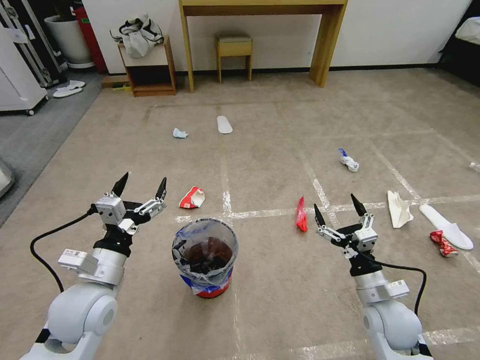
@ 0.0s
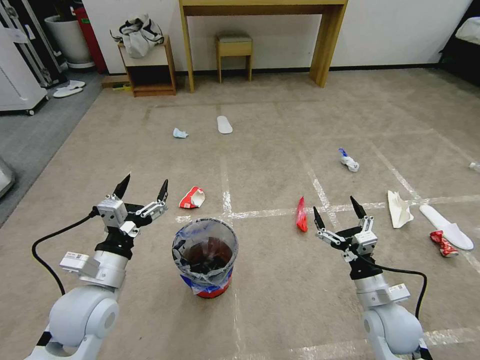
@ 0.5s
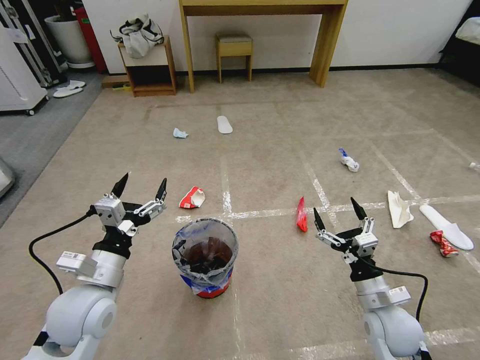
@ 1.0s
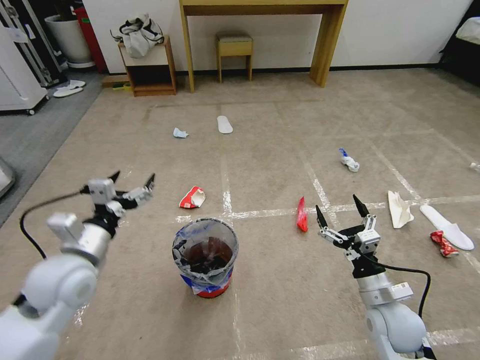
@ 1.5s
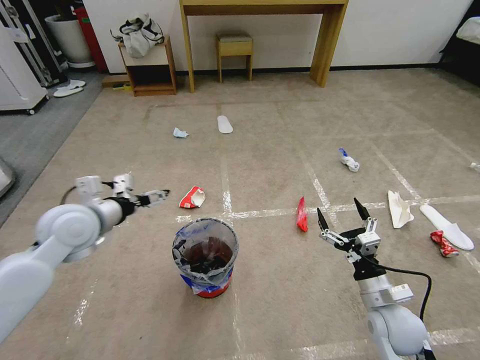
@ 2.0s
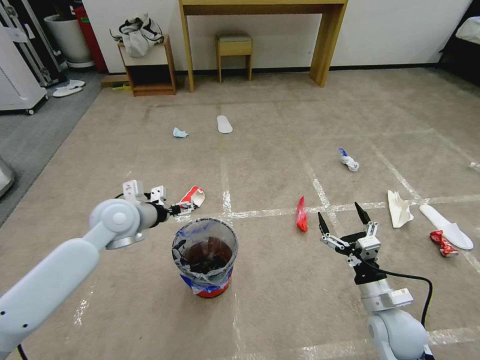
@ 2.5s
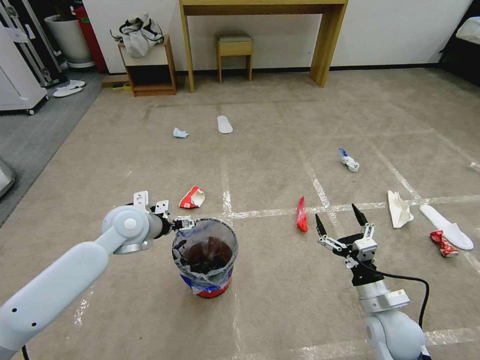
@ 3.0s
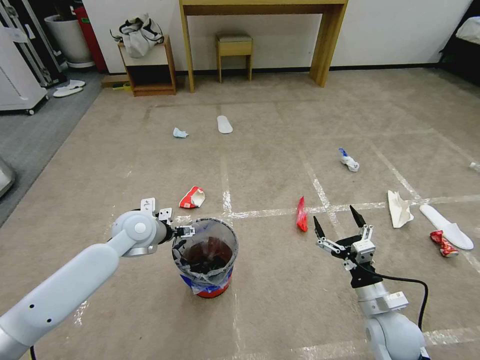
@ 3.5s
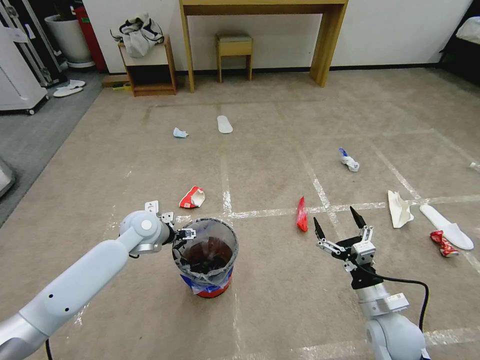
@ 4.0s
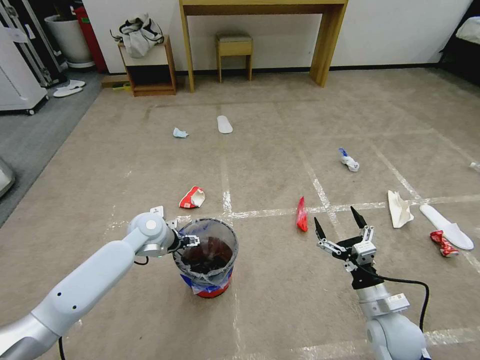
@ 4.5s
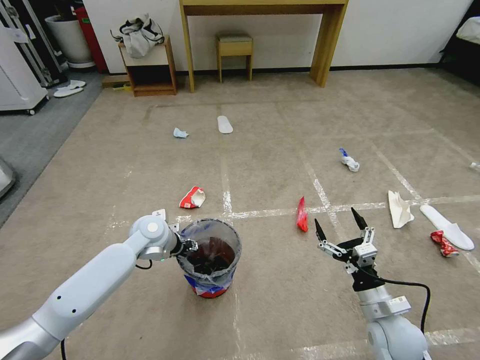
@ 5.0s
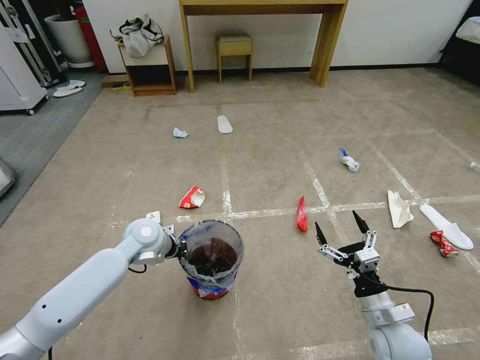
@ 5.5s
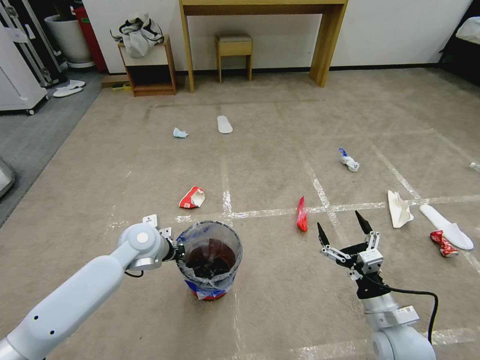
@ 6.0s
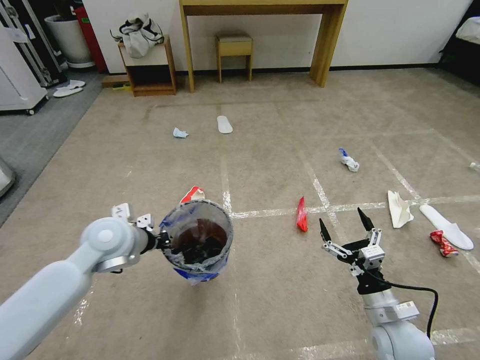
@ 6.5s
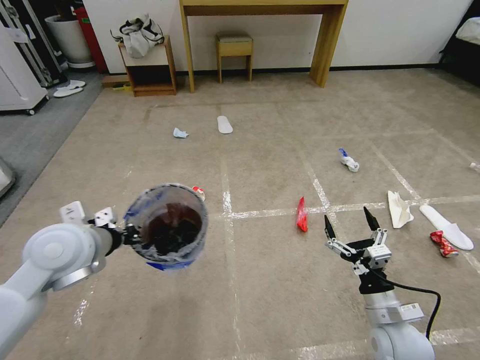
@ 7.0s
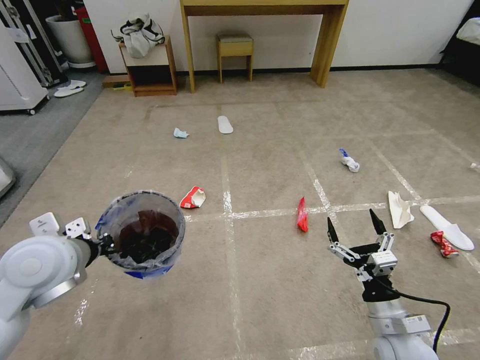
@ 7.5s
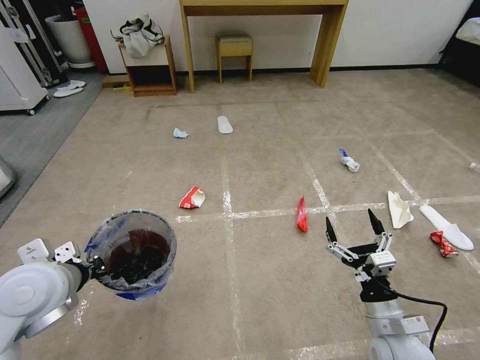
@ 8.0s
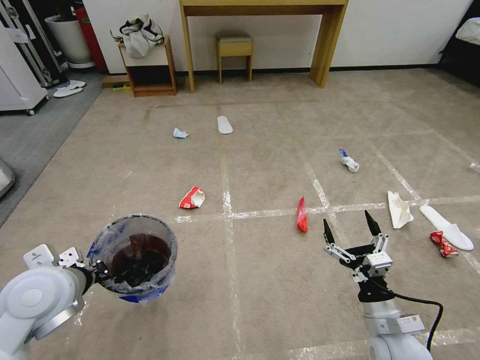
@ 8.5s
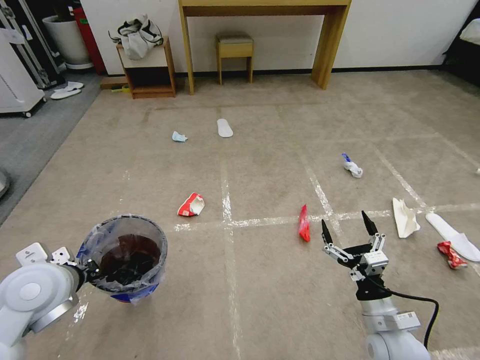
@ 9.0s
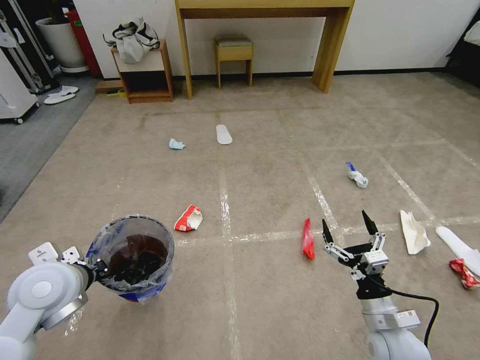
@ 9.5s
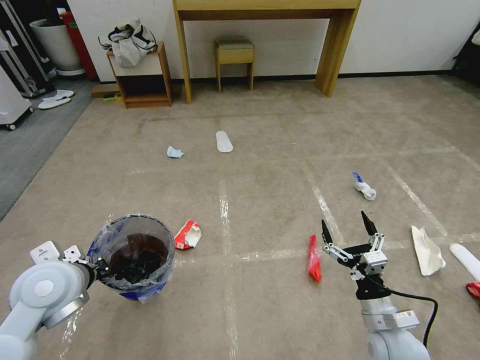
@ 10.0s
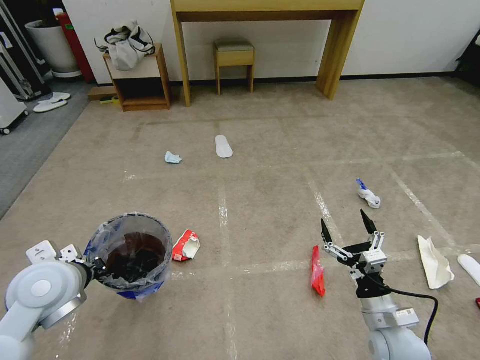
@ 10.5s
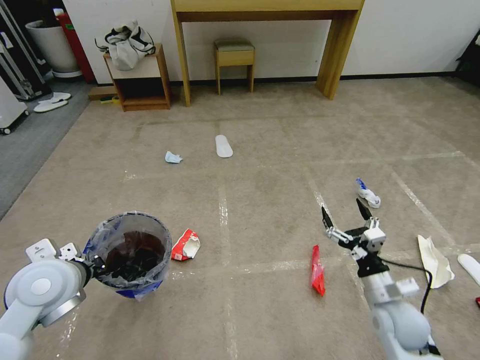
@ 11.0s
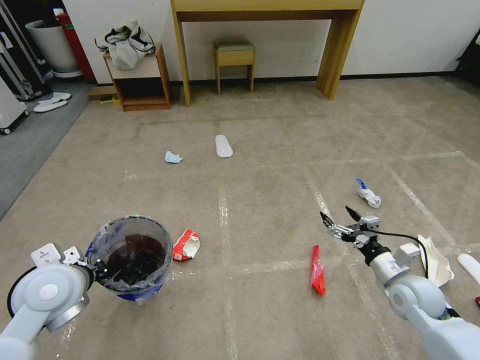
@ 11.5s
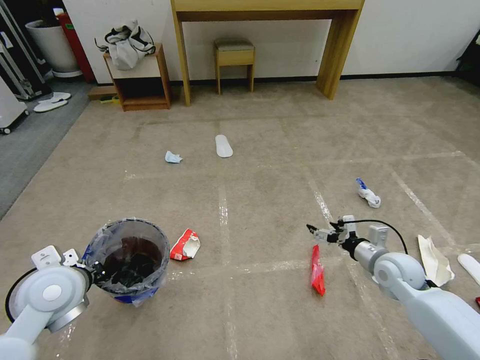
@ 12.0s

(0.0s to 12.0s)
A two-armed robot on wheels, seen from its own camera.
Task of the whole recording: Pick up the trash bin and place the garbage on the floor into it.
2.0s - 4.0s: The left gripper heads downward, forward and to the right, covering approximately 20 cm.
4.0s - 6.0s: The left gripper closes.
6.0s - 8.0s: The left gripper shifts roughly 20 cm backward, upward and to the left.
10.0s - 12.0s: The right gripper is displaced forward and to the right by about 15 cm.

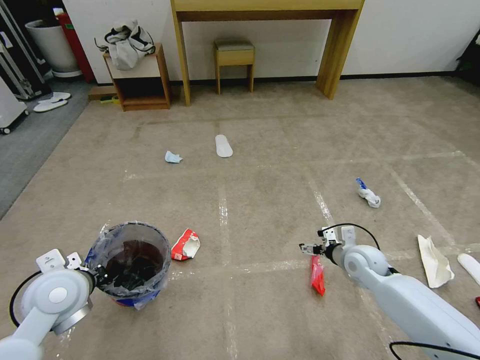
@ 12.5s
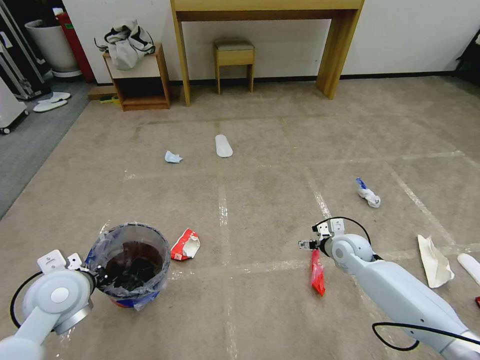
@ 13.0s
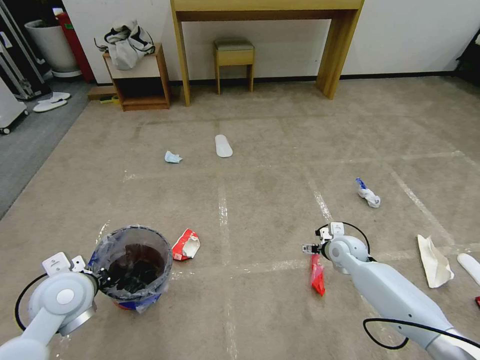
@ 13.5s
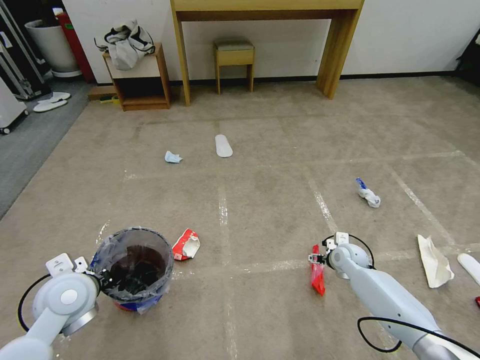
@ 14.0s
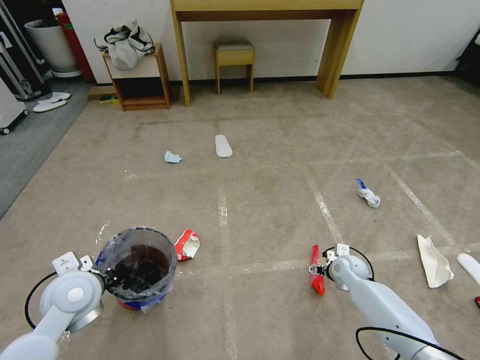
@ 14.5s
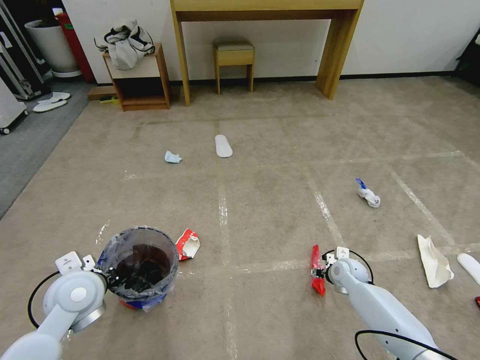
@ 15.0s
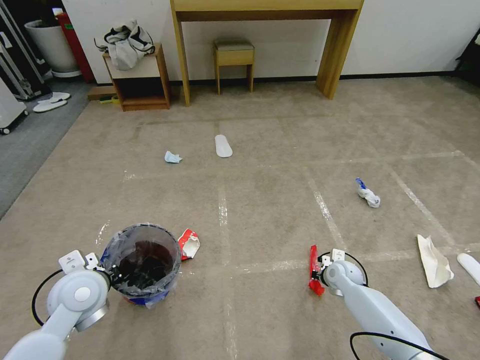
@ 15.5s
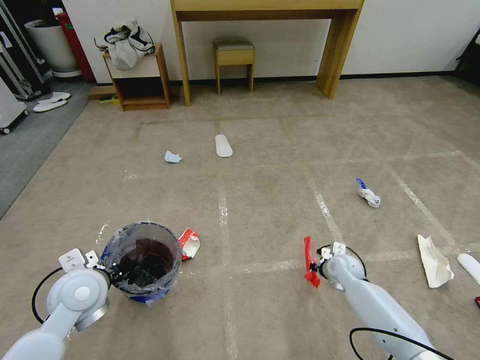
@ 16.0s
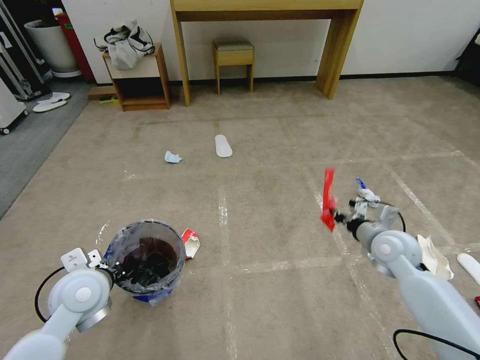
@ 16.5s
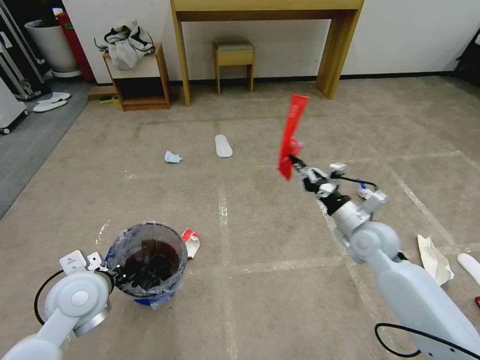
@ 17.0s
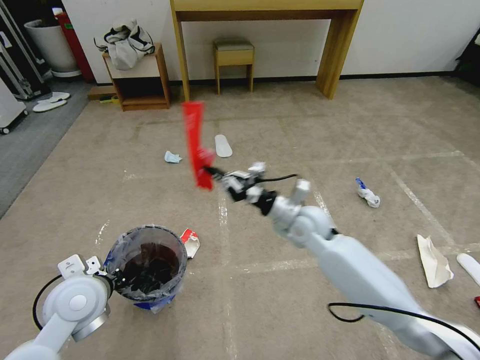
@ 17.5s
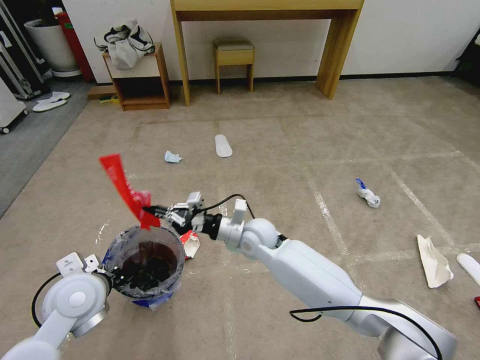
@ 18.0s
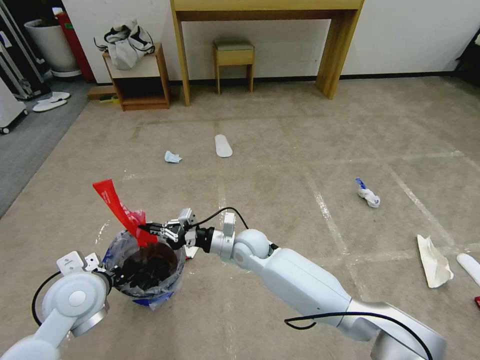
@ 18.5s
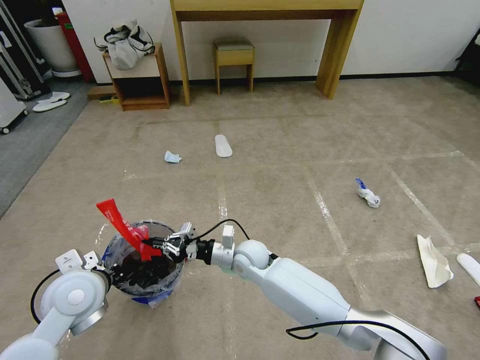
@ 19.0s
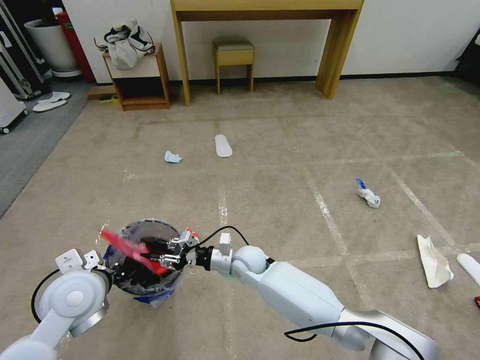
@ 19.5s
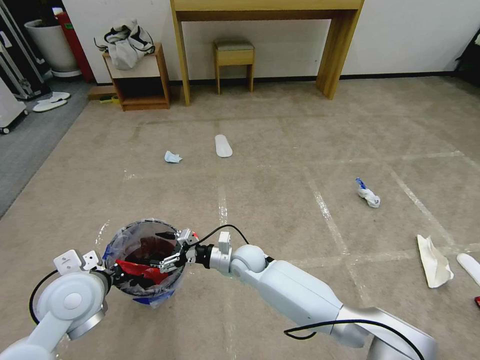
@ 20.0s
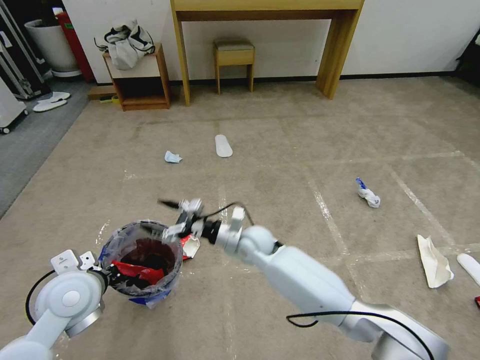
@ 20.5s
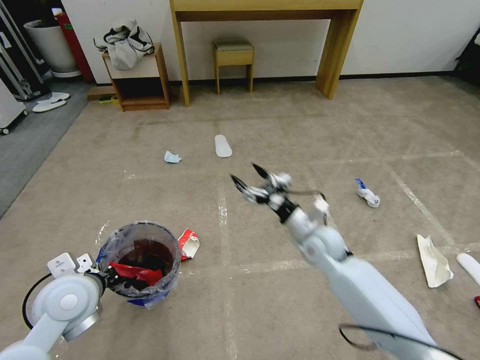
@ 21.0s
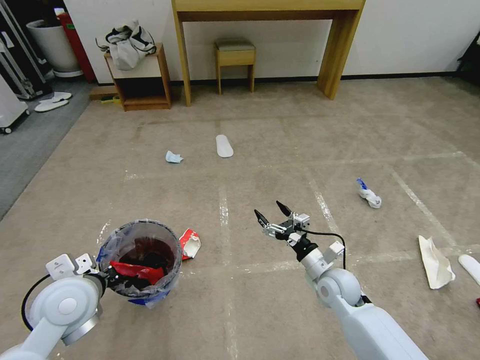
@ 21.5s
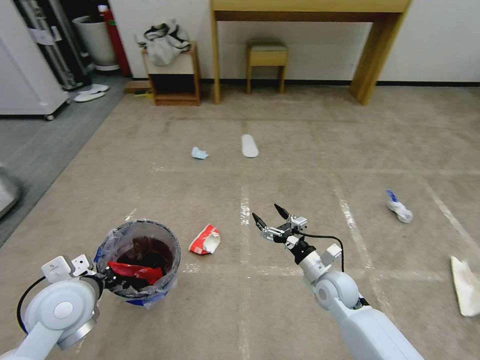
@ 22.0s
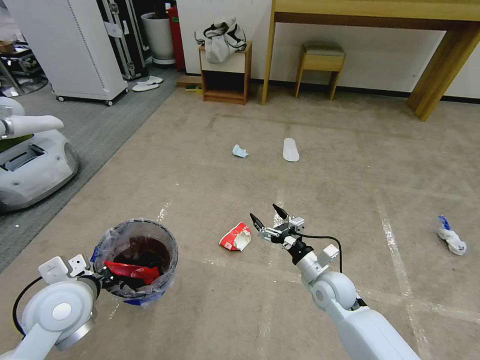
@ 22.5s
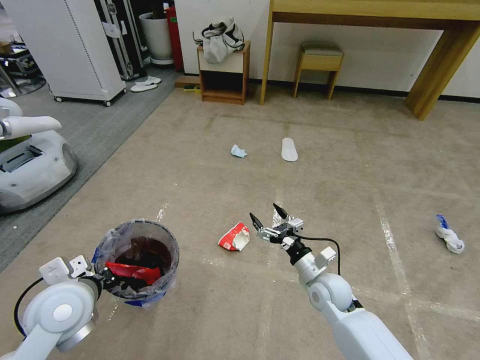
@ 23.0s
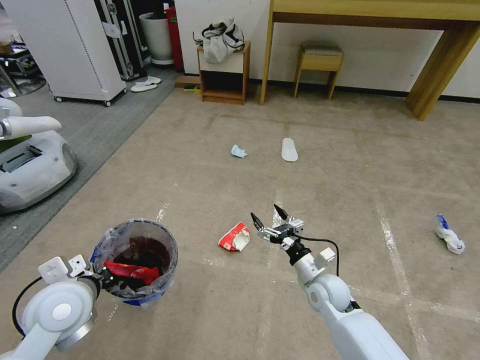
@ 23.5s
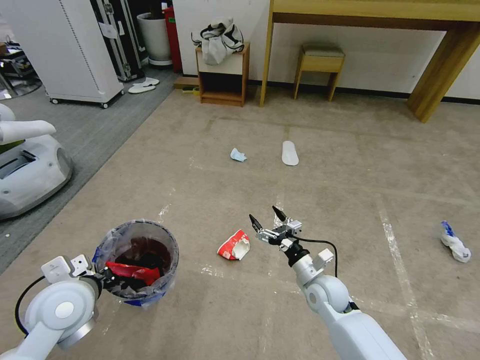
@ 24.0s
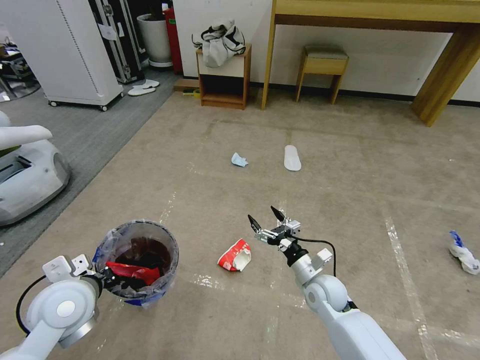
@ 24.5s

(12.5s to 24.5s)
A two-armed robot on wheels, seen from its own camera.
Task of the whole recording: Pick up the trash bin and place the garbage on the floor into it.
12.5s - 14.5s: The right gripper is displaced downward by roughly 10 cm.
14.5s - 16.5s: The right gripper heads upward, covering roughly 20 cm, and closes up.
16.5s - 18.5s: The right gripper heads to the left, covering roughly 35 cm.
18.5s - 20.5s: The right gripper opens up.
20.5s - 22.5s: The right gripper travels to the right and backward by roughly 20 cm.
22.5s - 24.5s: The grippers move only a little.

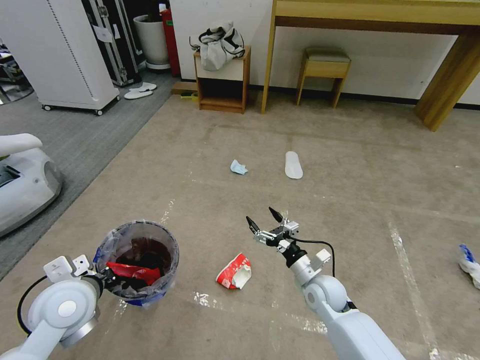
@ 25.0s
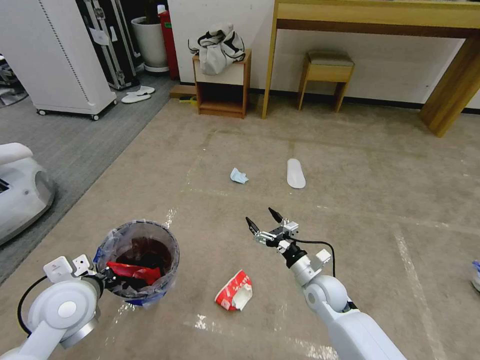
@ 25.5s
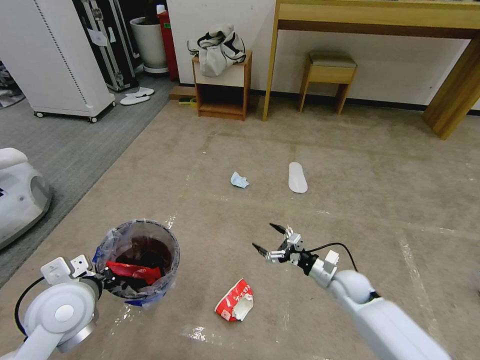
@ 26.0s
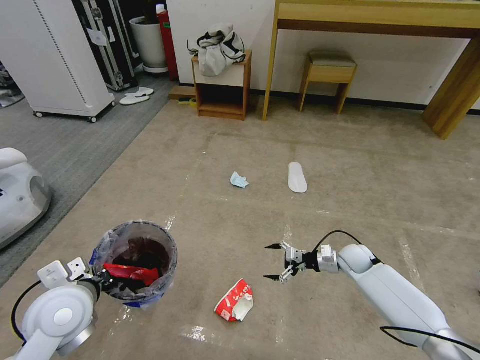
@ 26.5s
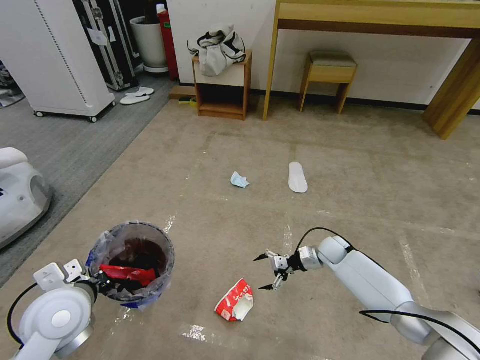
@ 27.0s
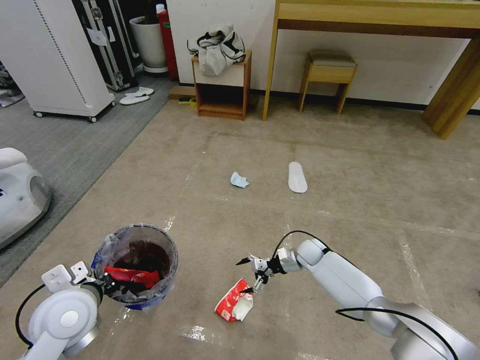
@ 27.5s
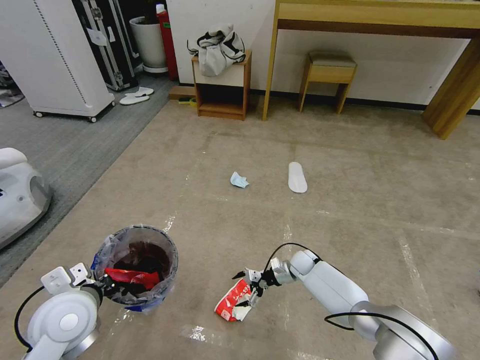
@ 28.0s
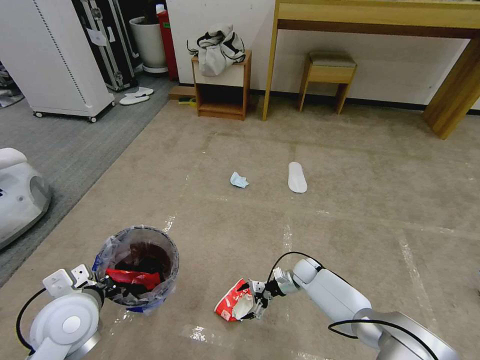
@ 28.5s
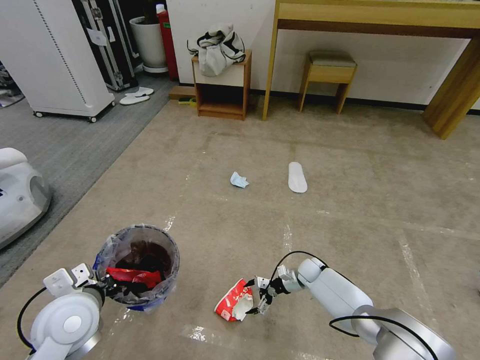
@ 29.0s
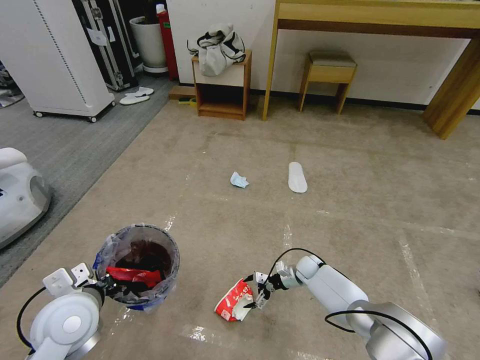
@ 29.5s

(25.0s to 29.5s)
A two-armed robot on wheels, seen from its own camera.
Task of the whole recording: Pick up the trash bin and place the garbage on the floor into it.
25.0s - 27.0s: The right gripper goes about 20 cm forward and to the right.
27.0s - 29.5s: The right gripper heads downward and to the left, covering approximately 10 cm.
